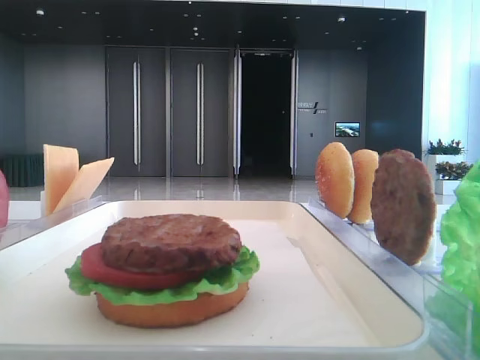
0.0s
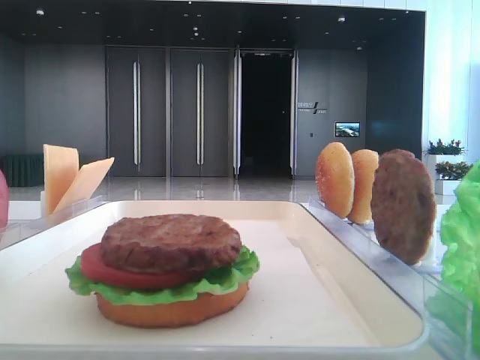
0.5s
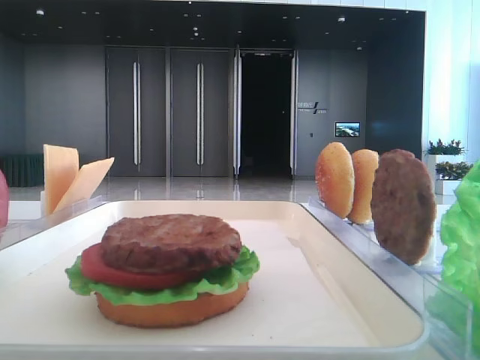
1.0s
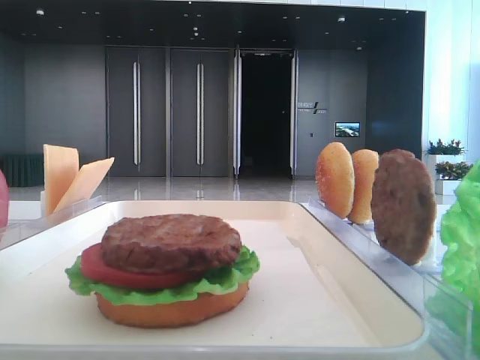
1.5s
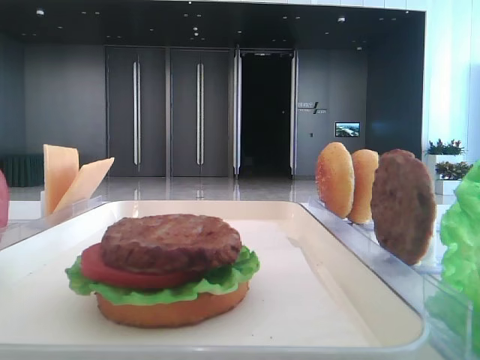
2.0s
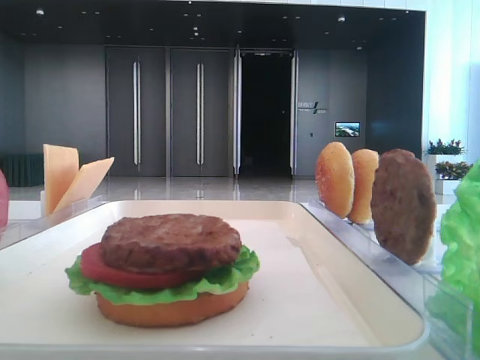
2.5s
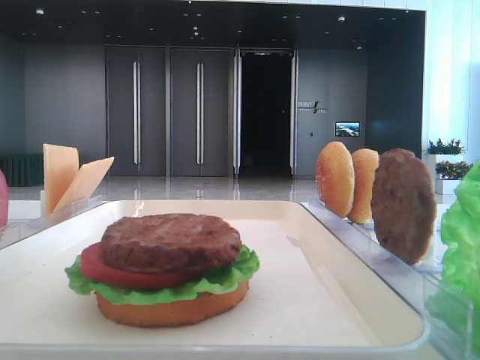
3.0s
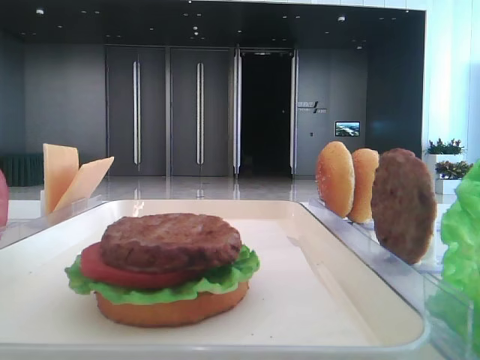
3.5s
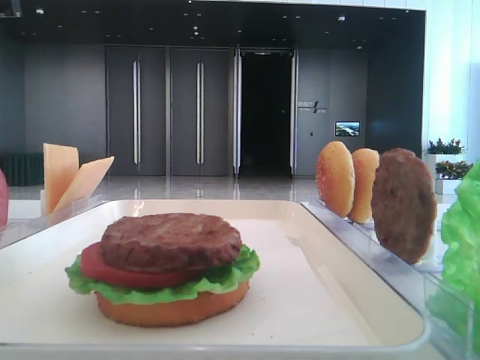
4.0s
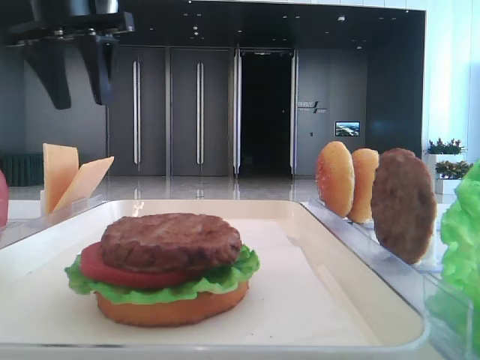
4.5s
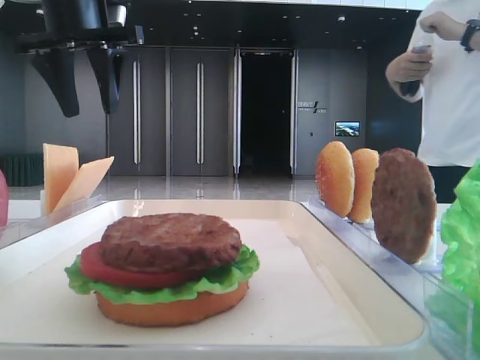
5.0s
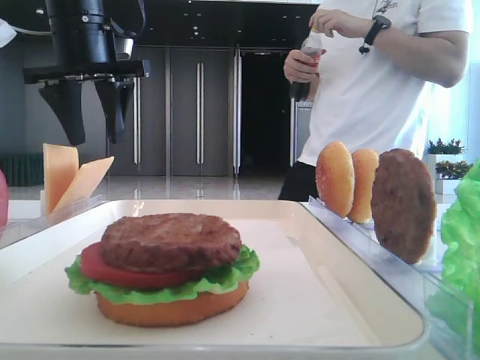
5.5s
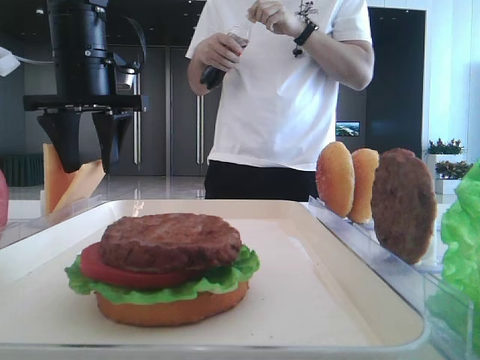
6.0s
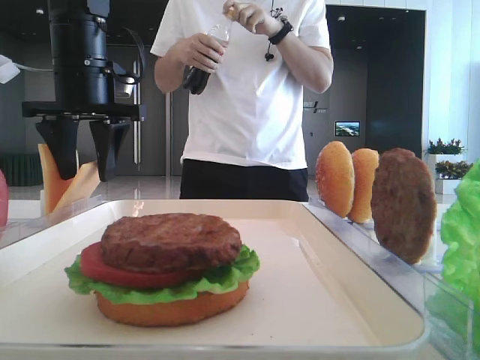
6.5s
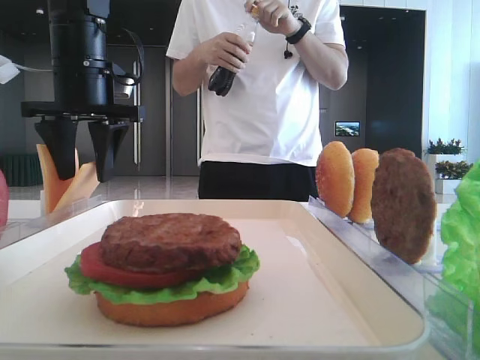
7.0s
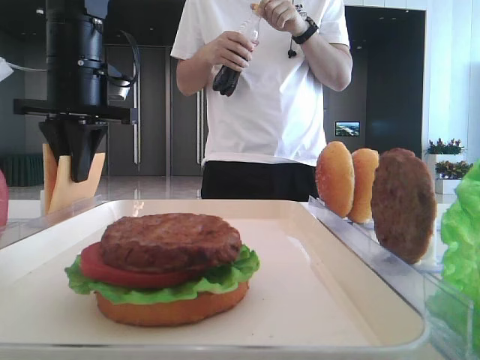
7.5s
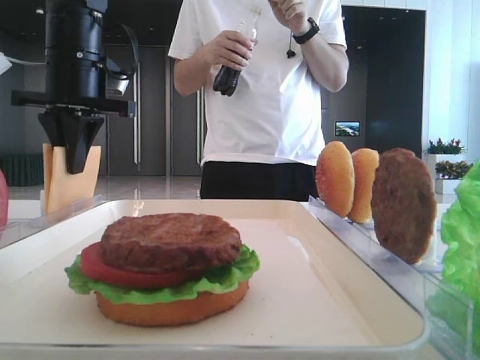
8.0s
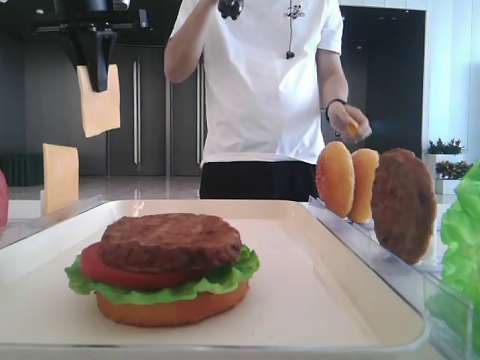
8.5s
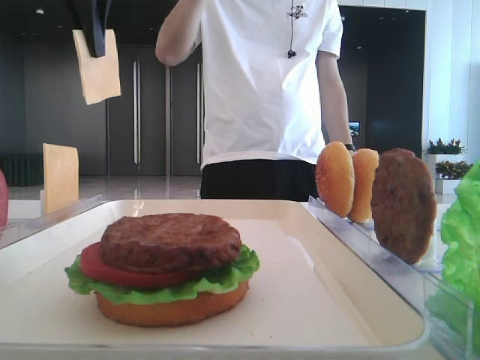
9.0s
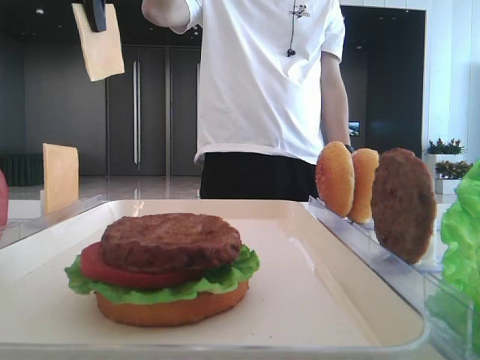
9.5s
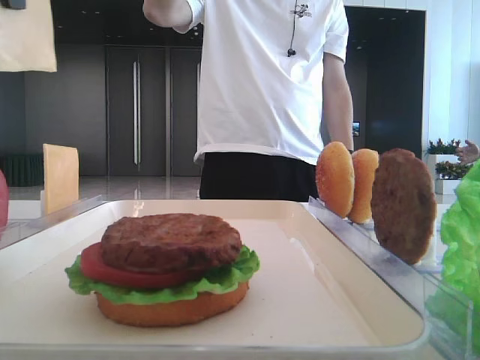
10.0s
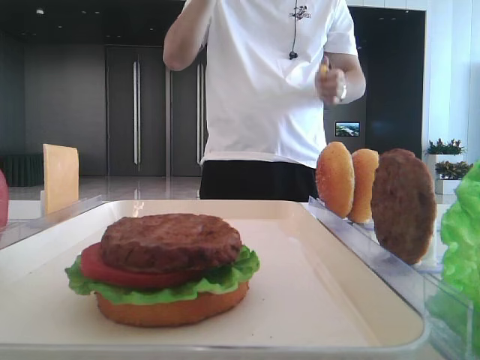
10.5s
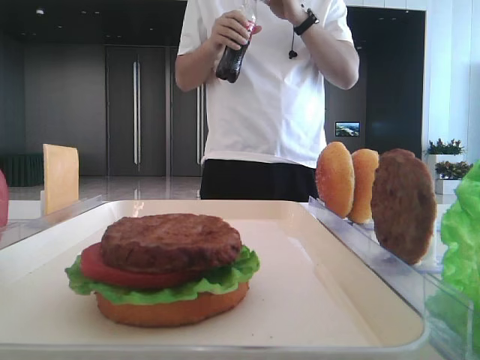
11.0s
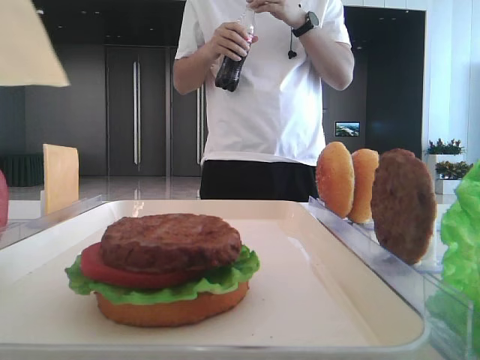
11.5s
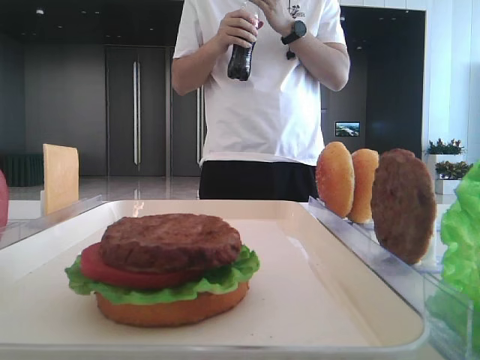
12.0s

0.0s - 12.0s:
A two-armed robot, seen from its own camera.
Step, 0.0s - 7.5s: Pick up the cheese slice with the left hand.
2.0s - 4.0s: The left gripper moves forward, about 40 cm.
4.0s - 6.0s: The left gripper travels to the right and downward by some 15 cm.
6.0s - 8.0s: The left gripper closes up.
8.0s - 10.0s: The left gripper goes approximately 20 cm upward and backward.
10.0s - 12.0s: The left gripper moves backward and downward, approximately 10 cm.

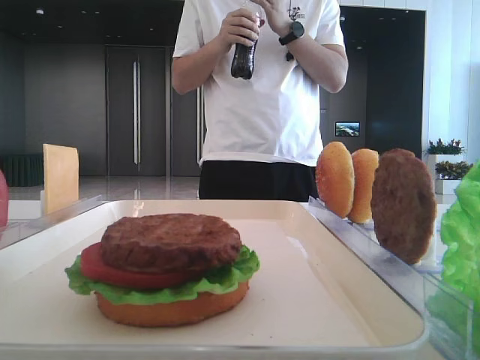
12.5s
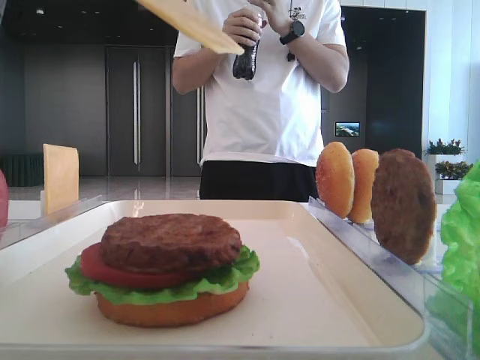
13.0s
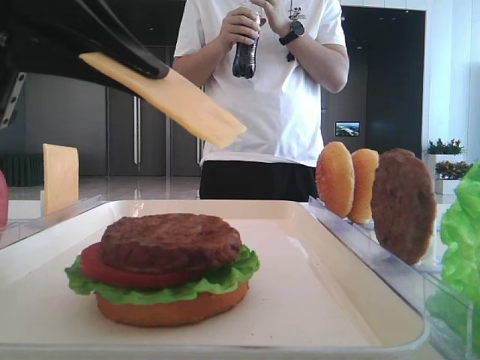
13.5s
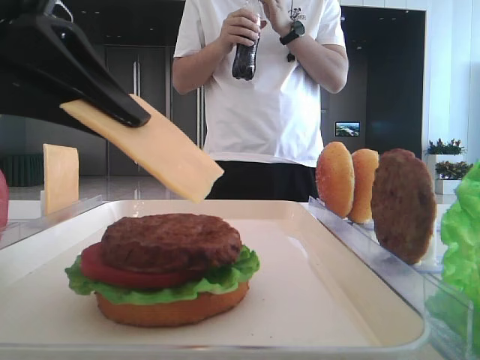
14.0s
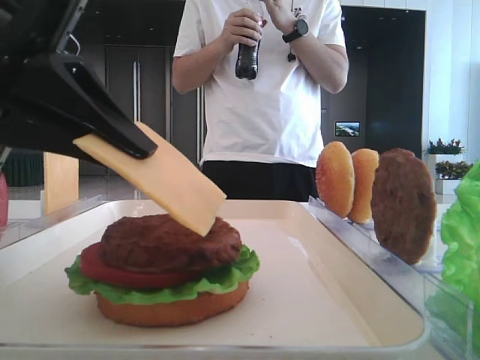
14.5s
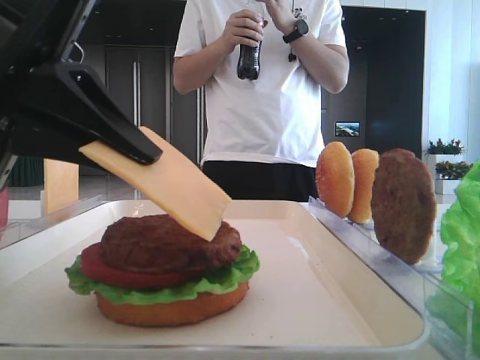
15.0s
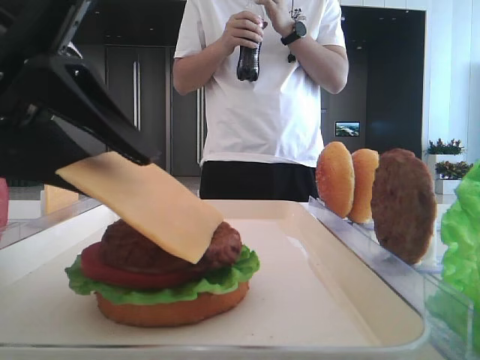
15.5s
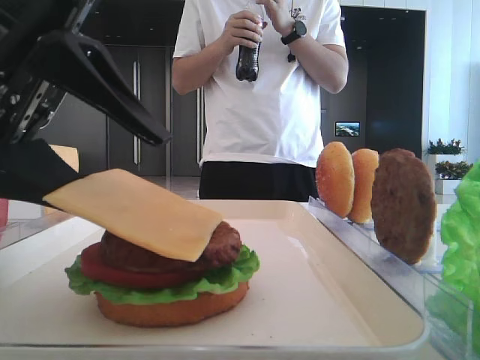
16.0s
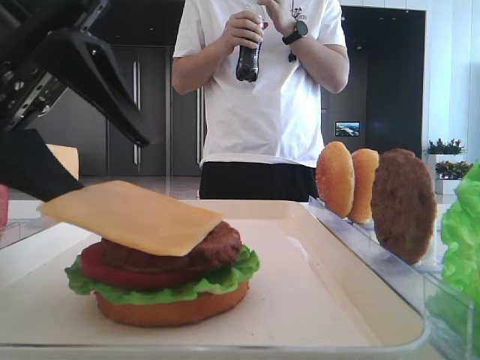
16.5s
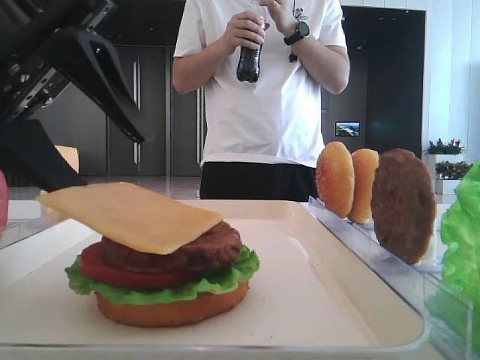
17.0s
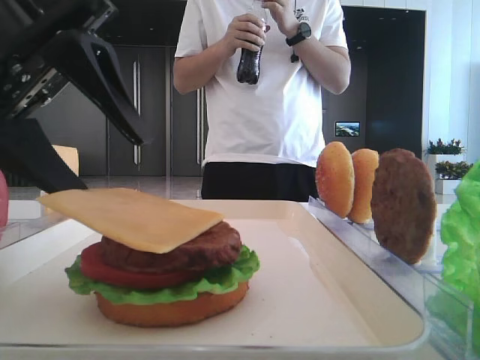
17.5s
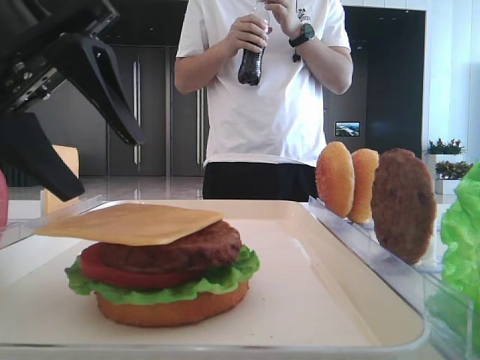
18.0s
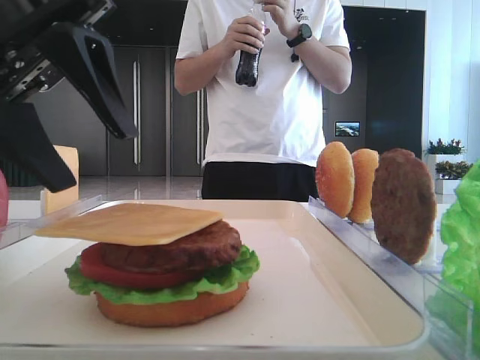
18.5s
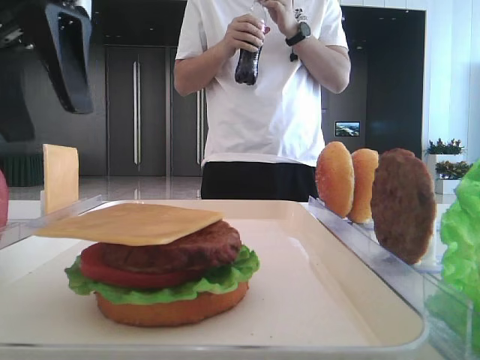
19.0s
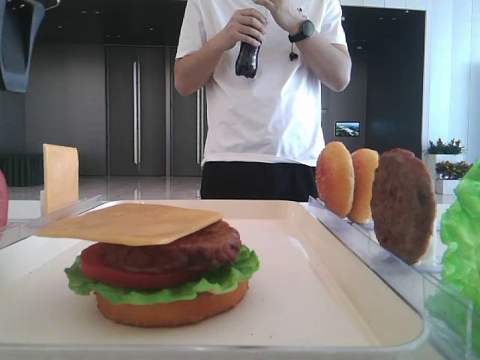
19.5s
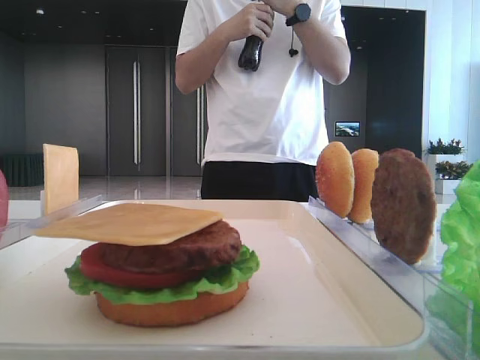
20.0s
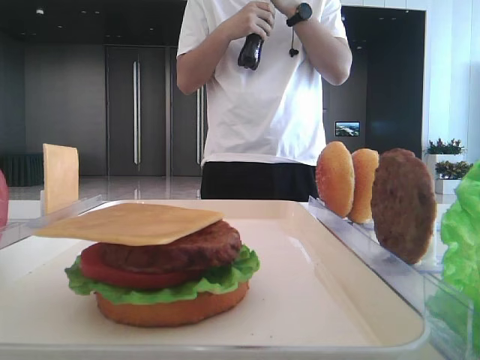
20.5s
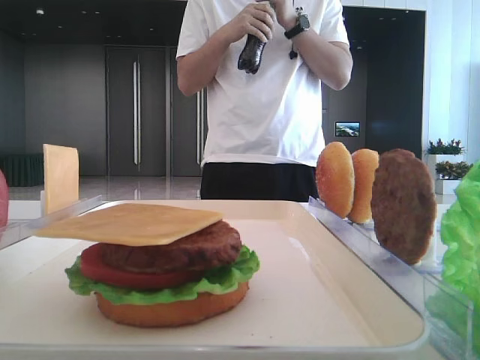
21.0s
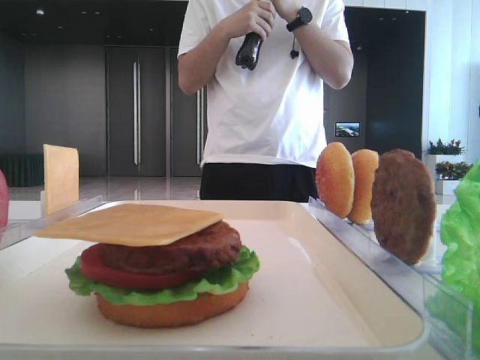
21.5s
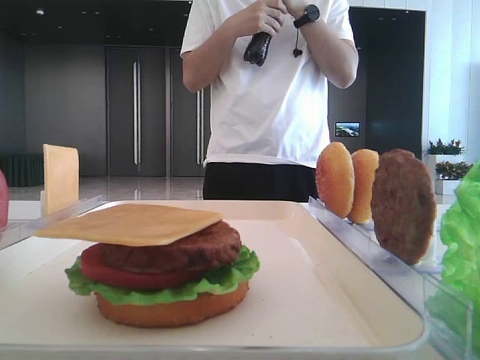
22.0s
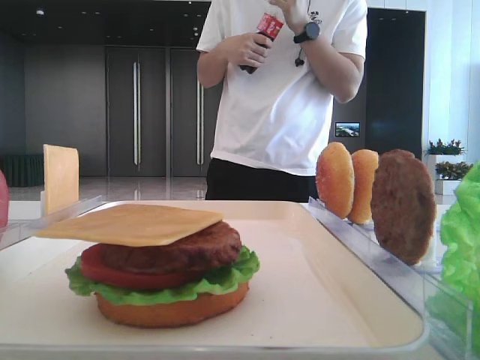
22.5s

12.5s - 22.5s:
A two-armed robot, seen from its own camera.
Step, 12.5s - 17.5s: Place the cheese slice on the patty with the left hand.
12.5s - 14.5s: The left gripper moves downward, some 10 cm.
14.5s - 16.5s: The left gripper opens.
16.5s - 18.5s: The grippers make only small movements.
18.5s - 20.5s: The left gripper goes roughly 20 cm to the left and upward.
20.5s - 22.5s: The left gripper travels backward by about 30 cm.

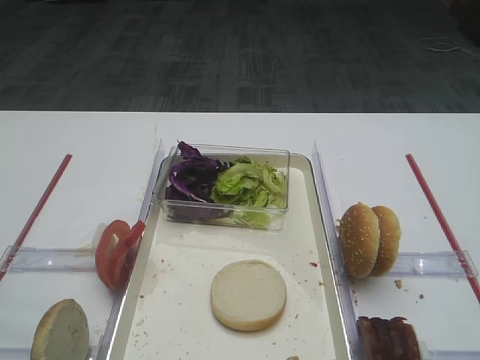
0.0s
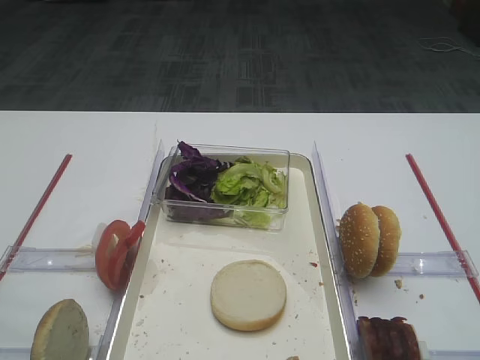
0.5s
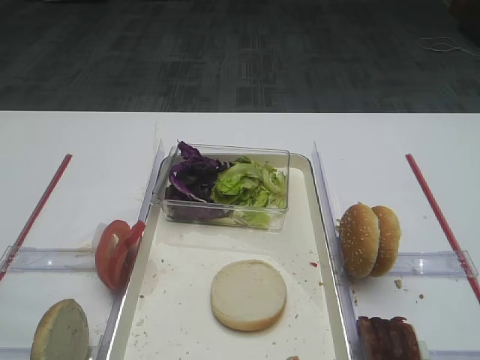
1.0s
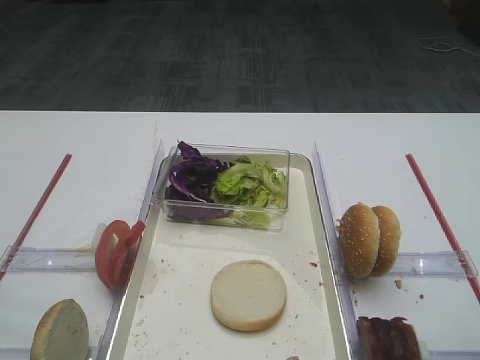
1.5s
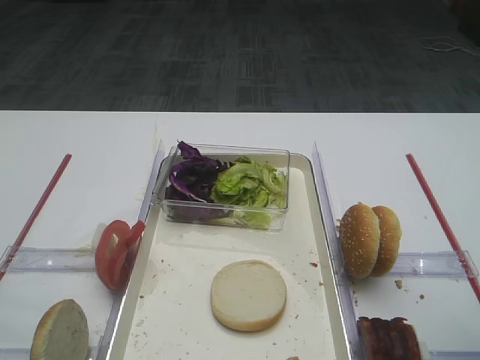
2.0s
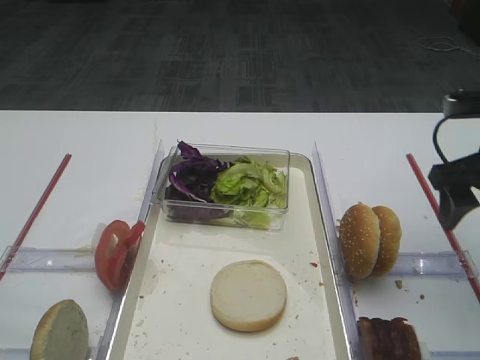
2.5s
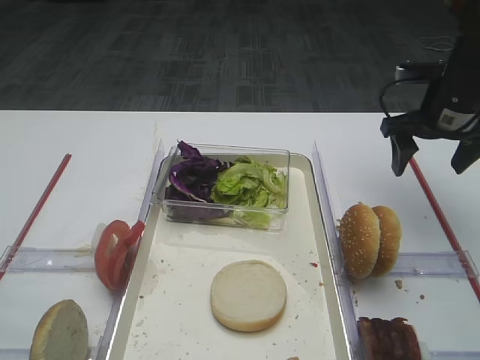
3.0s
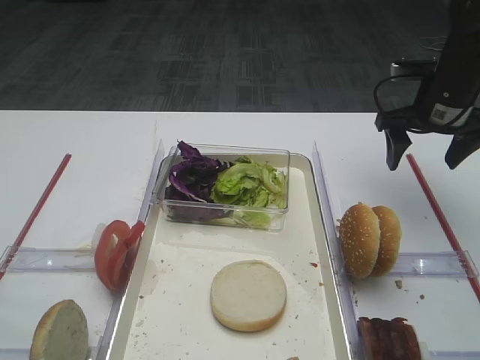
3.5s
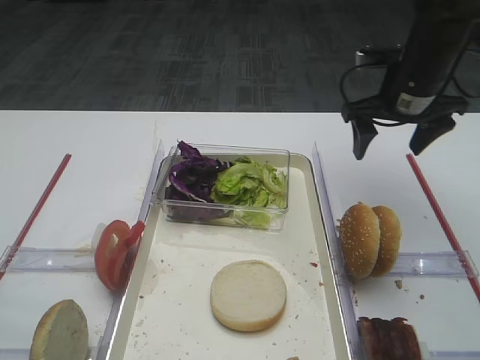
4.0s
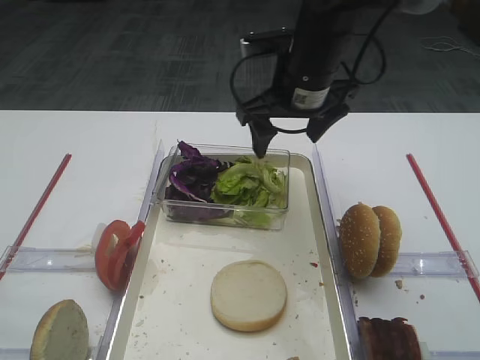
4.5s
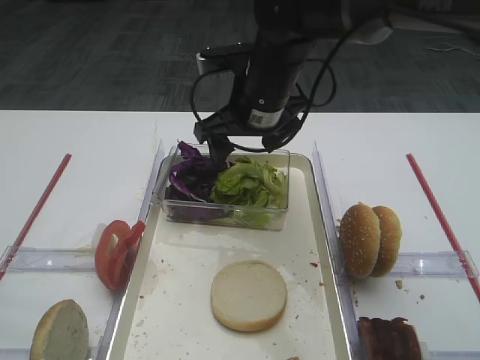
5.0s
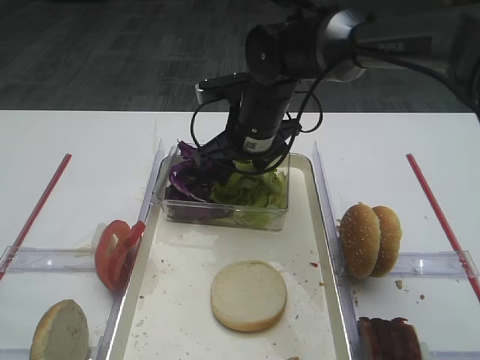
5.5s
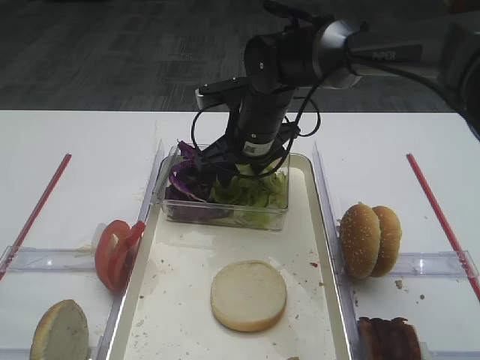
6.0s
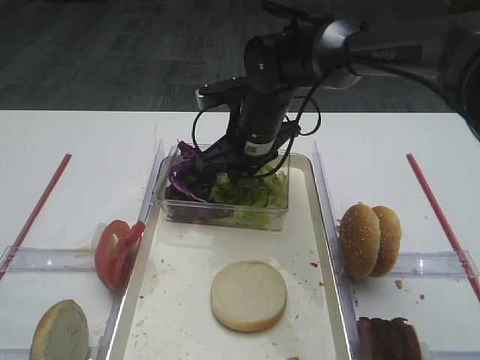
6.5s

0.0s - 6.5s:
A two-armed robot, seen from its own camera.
2.0s - 4.5s: The right gripper shifts roughly 30 cm forward and to the left.
4.5s - 6.5s: The right gripper heads downward and to the left, covering approximately 10 cm, and closes.
